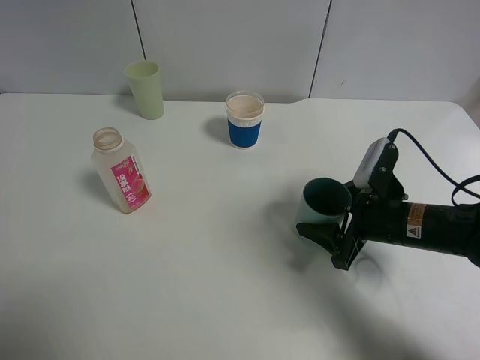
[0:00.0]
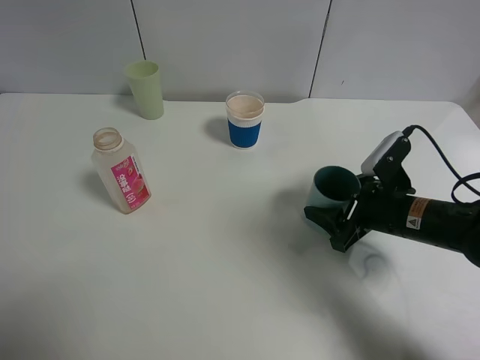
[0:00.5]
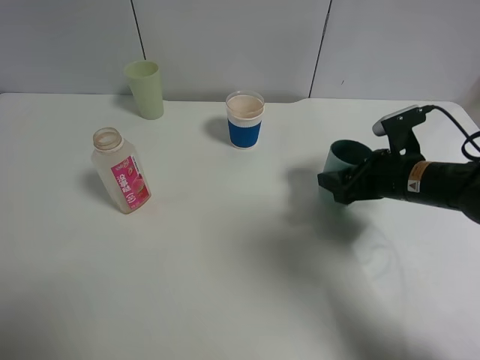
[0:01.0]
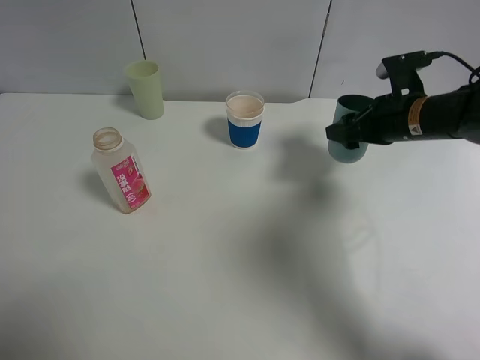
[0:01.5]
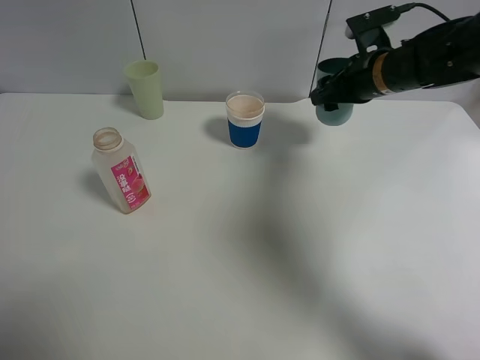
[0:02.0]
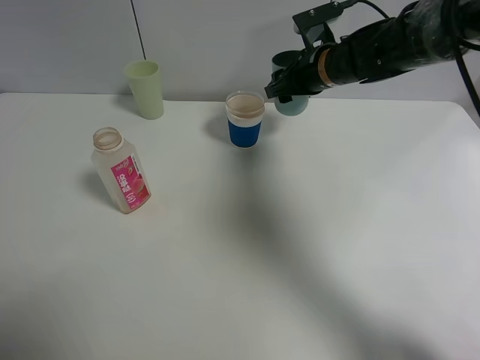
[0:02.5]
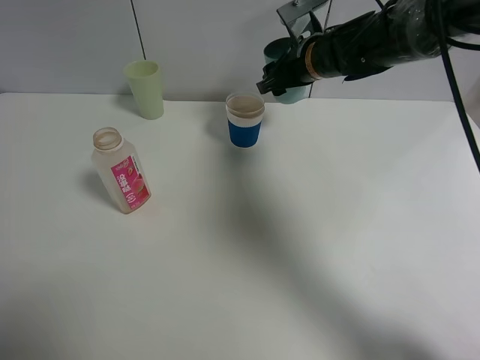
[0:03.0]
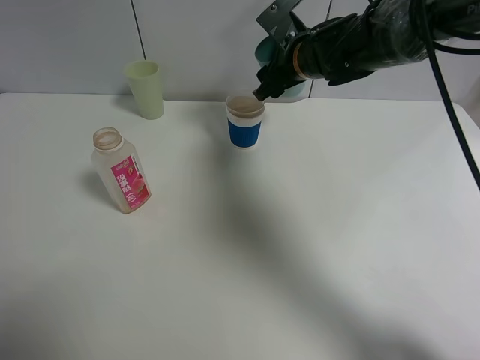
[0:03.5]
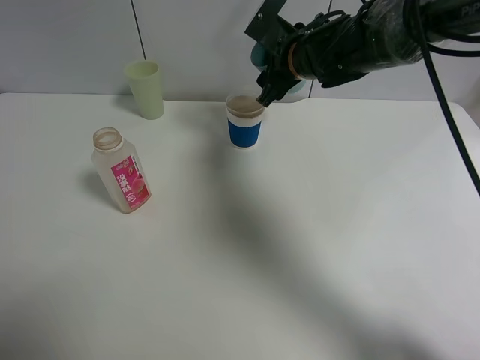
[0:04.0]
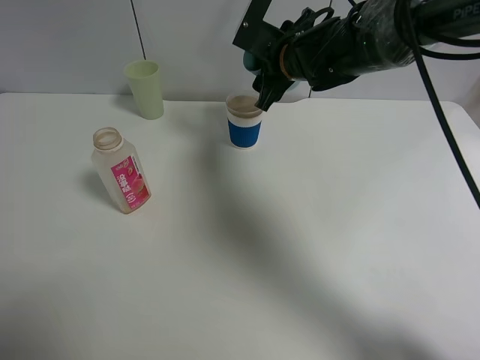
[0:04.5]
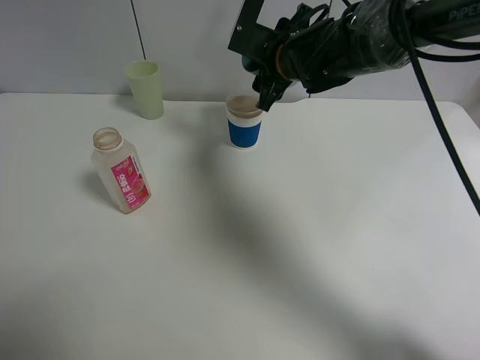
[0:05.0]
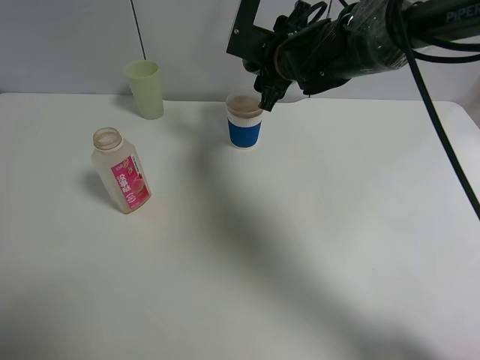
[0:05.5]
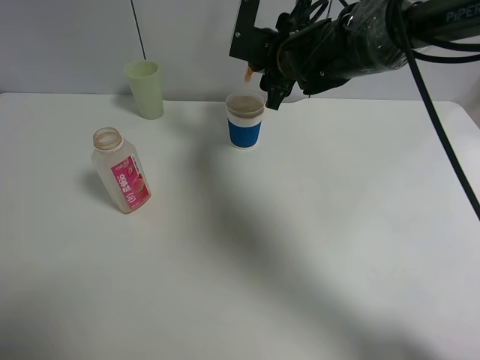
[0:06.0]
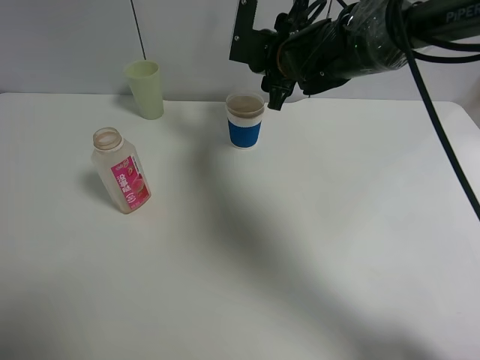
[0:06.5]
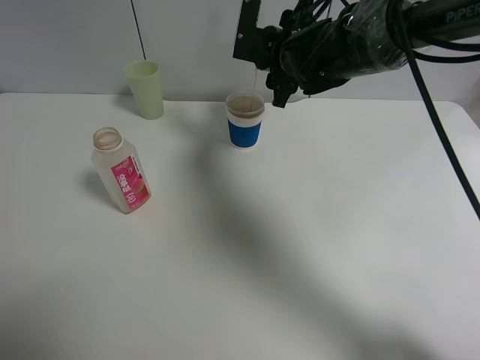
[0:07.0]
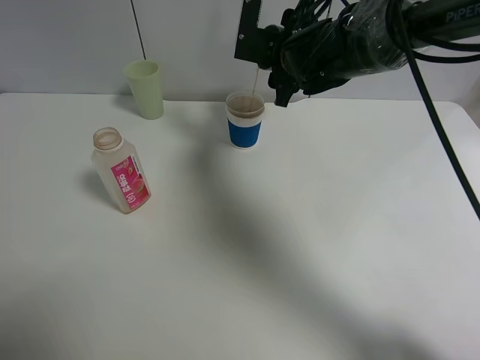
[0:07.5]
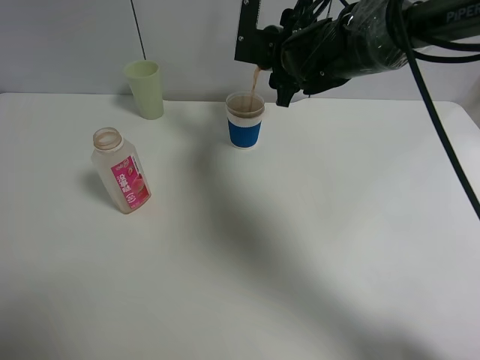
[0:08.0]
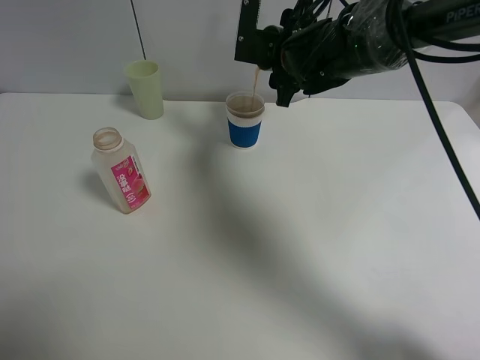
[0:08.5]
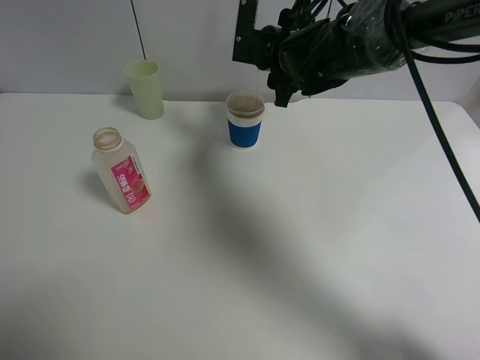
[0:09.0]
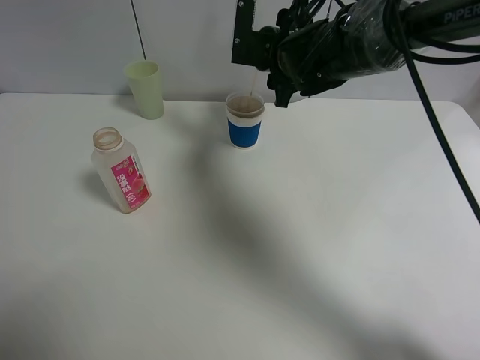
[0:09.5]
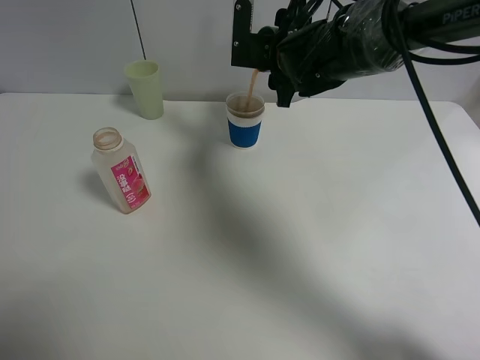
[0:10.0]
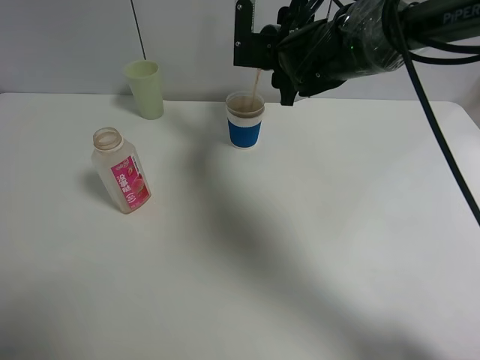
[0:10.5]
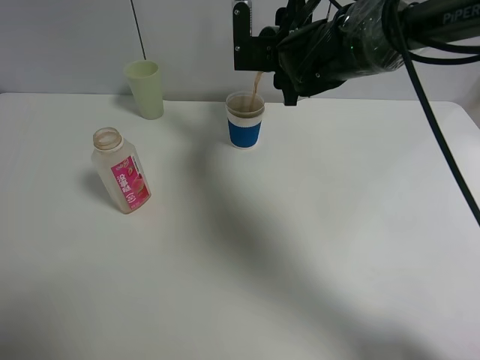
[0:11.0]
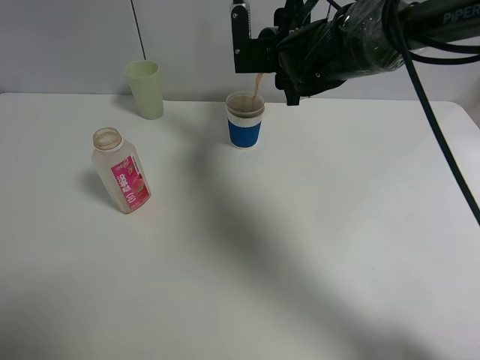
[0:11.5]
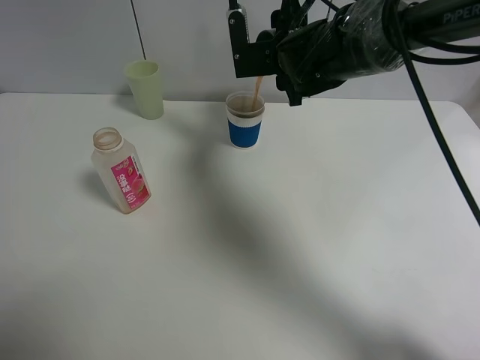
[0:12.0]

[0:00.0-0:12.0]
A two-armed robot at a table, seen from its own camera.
Task of the whole recording: use a clamp to hold the bottle of the drink, pour the beverage into a random cup, then clamp the cup containing the drink and pour the drink into another random cup.
0:00.0 to 0:02.0: The right gripper heads forward and upward, covering about 20 cm.
0:02.0 to 0:04.0: The right gripper shifts about 10 cm to the left.
0:06.0 to 0:08.0: There are only small adjustments of the grippers.
0:08.0 to 0:10.0: Both grippers stay about where they are.
0:10.0 to 0:12.0: The grippers move only a little.

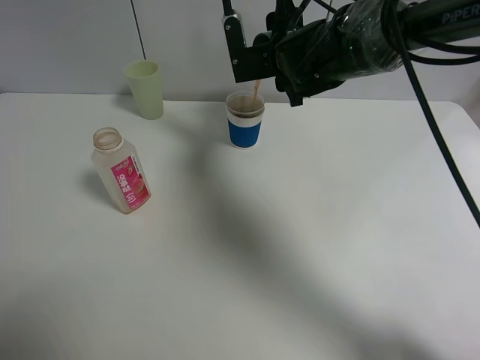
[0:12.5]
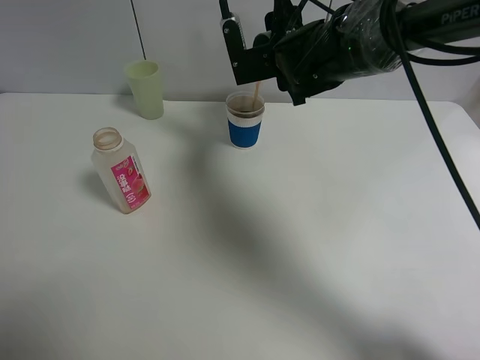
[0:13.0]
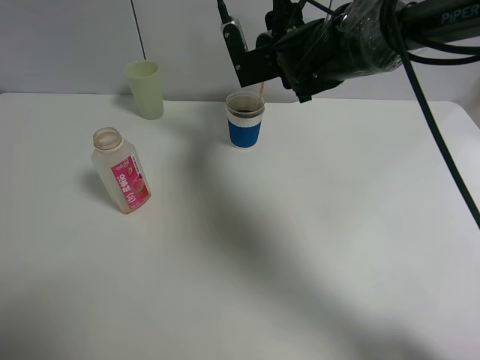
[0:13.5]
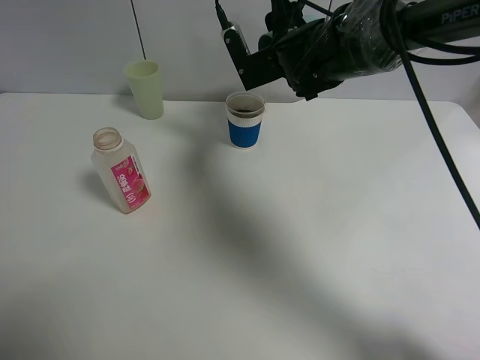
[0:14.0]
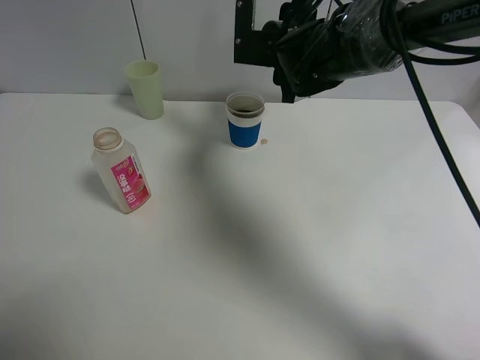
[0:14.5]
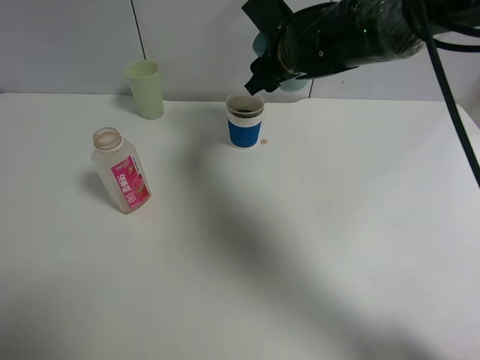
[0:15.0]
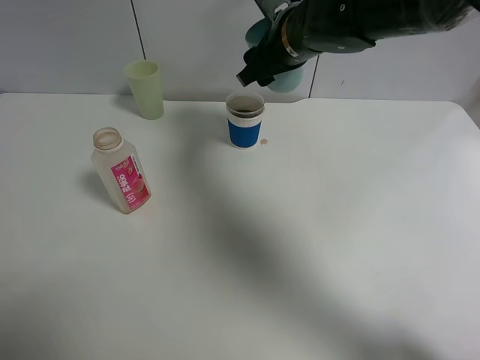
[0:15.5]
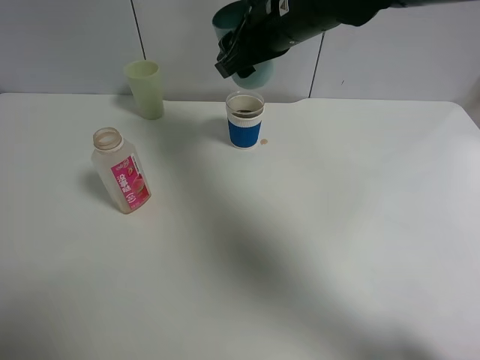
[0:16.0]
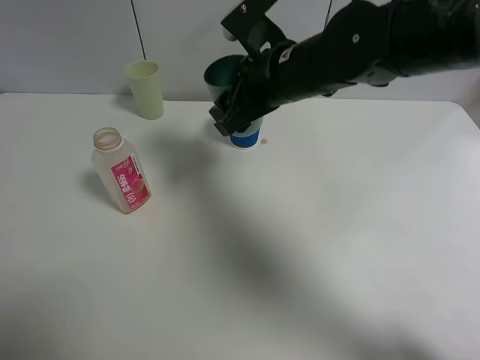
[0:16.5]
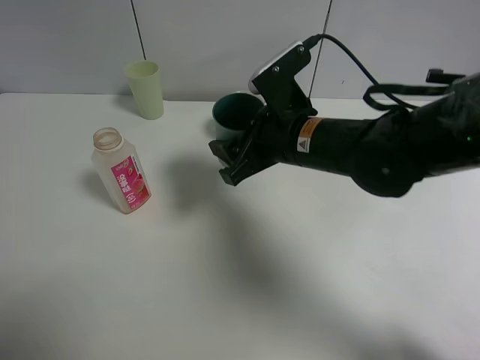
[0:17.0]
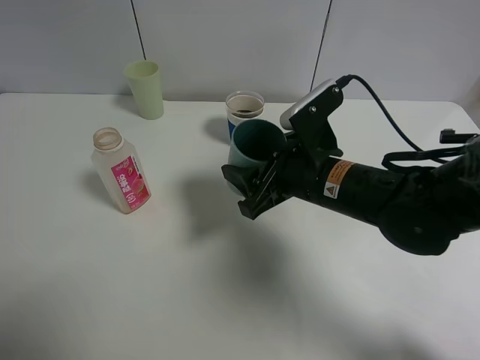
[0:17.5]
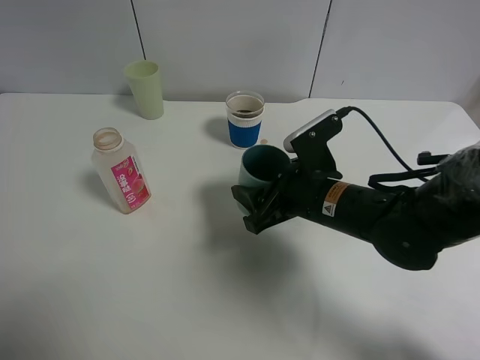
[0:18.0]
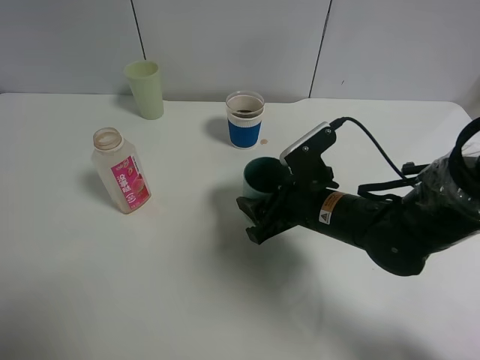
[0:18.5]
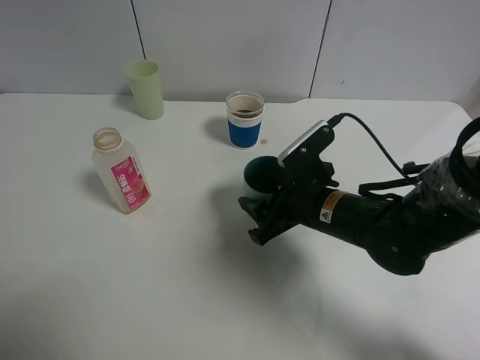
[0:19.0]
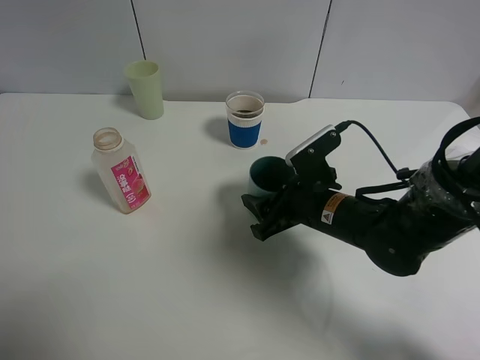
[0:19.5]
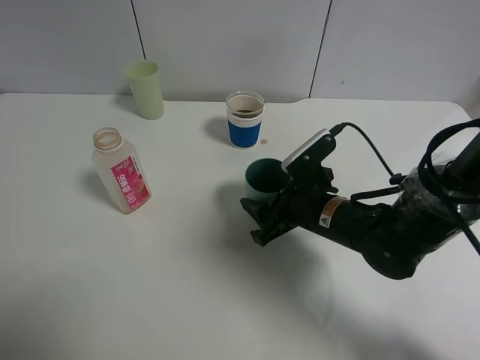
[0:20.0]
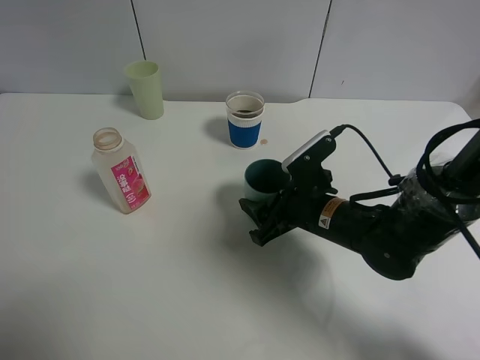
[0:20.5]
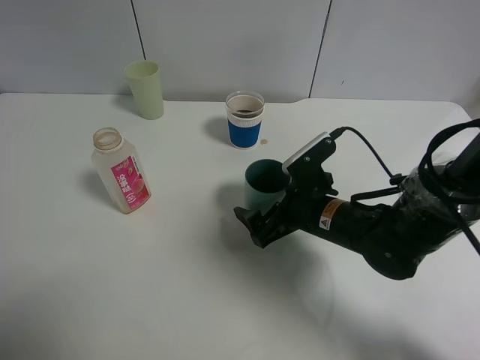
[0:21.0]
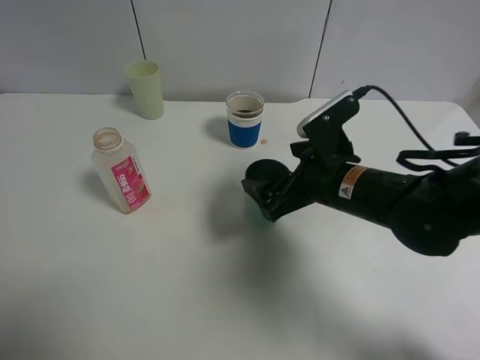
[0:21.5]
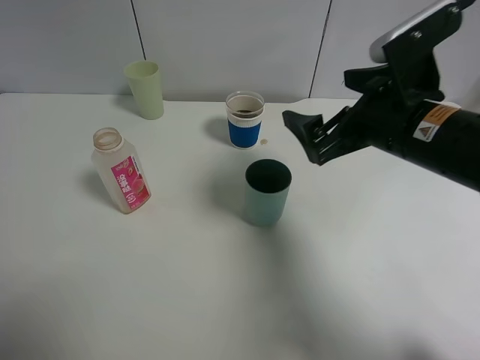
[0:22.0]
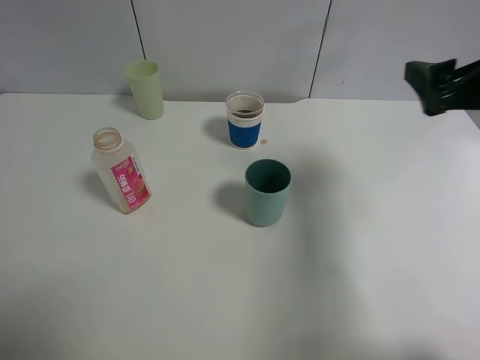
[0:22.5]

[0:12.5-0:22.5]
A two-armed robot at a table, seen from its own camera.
Task of the whole recording: use a clamp to hold the bottle of the drink, pour the beverage into a random cup, then clamp the cup containing the drink and pour the drink into another random cup.
Step, 0:12.5 to 0:14.5: Pour the drink into the paper cup with right gripper.
Step, 0:15.0 to 0:21.0: Place the blue plastic cup on the table with right gripper.
0:14.5 to 0:16.5: The right gripper heads backward, covering some 10 cm.
0:16.5 to 0:18.5: The right gripper is displaced downward, backward and to the right by approximately 15 cm.
0:18.5 to 0:20.5: The grippers move only a little.
0:20.5 to 0:22.5: The right gripper shifts some 25 cm upward and to the right, and opens its fingers.

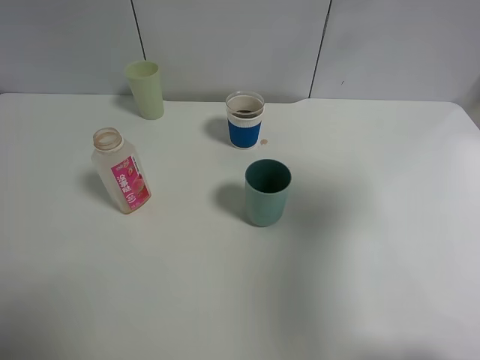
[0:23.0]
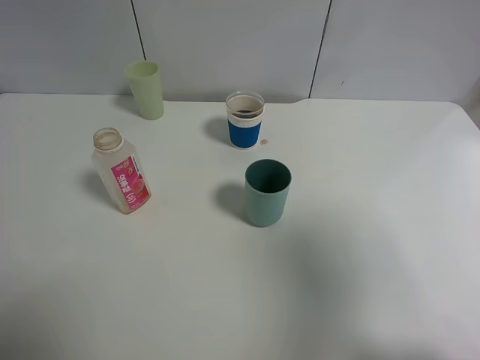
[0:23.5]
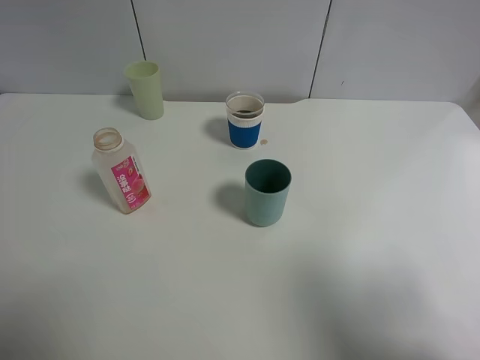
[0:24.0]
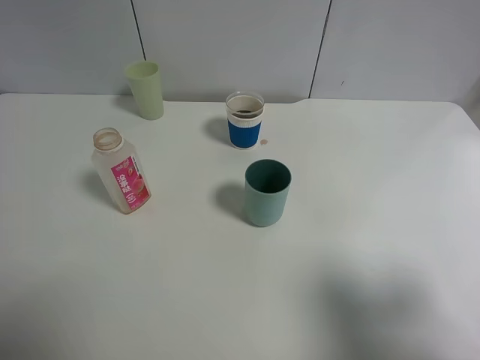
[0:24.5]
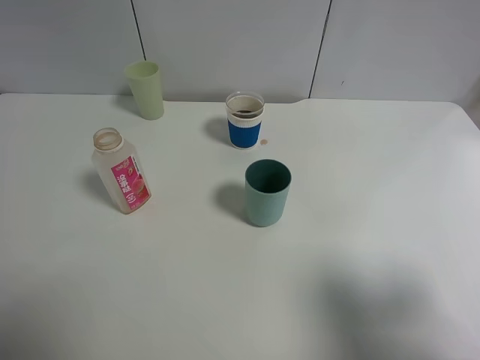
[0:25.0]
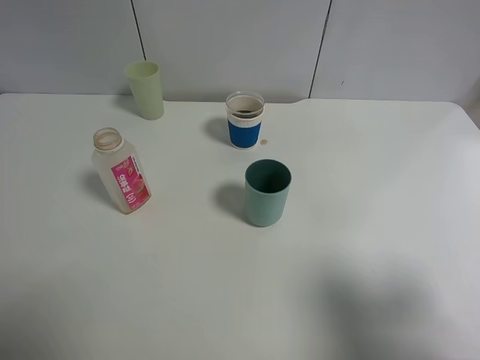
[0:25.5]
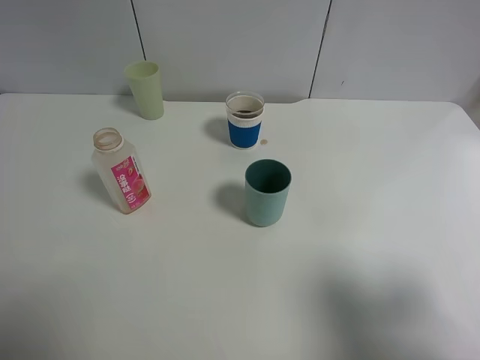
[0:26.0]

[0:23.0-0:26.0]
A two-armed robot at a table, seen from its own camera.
Task of the whole recording: use a clamp to hold the bottle of the drink, pour the beverage into a random cup, then clamp the cup containing the drink and pour the drink into another random cup.
0:23.0 to 0:24.5: The right gripper goes approximately 15 cm backward and downward.
0:24.5 to 0:26.0: Neither gripper changes place.
